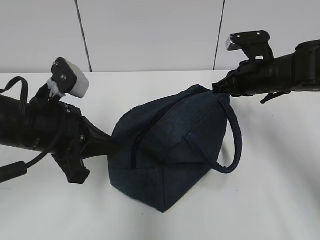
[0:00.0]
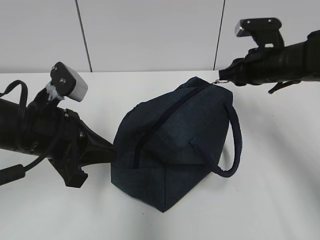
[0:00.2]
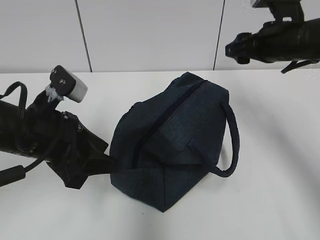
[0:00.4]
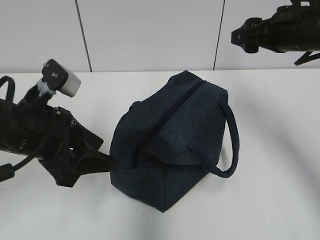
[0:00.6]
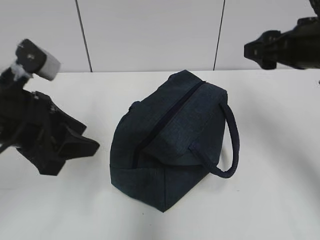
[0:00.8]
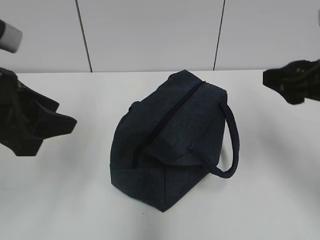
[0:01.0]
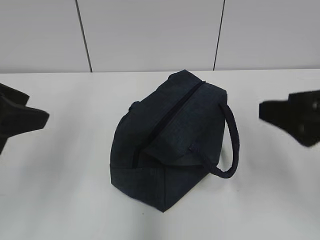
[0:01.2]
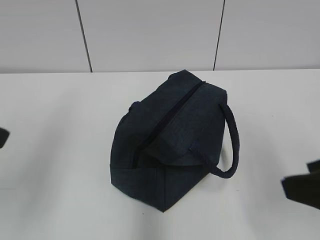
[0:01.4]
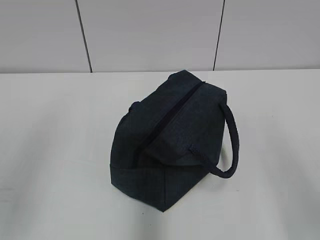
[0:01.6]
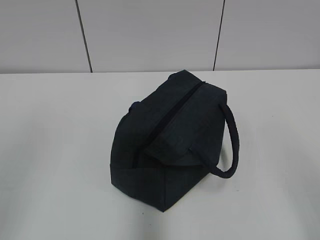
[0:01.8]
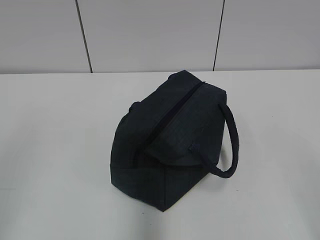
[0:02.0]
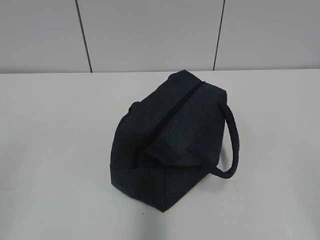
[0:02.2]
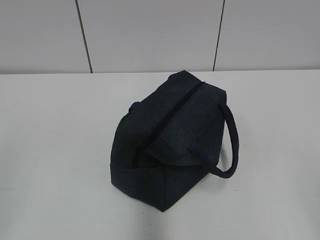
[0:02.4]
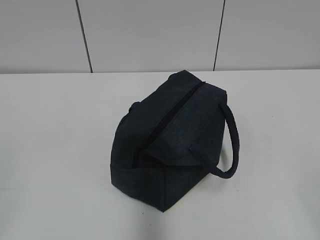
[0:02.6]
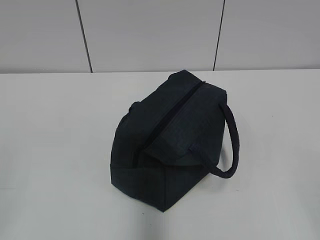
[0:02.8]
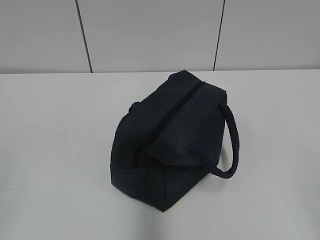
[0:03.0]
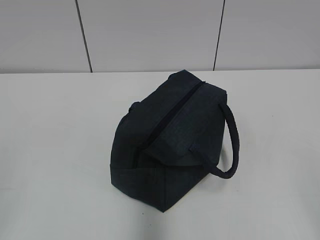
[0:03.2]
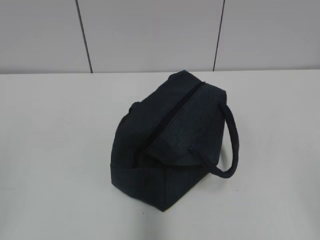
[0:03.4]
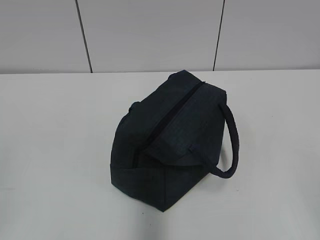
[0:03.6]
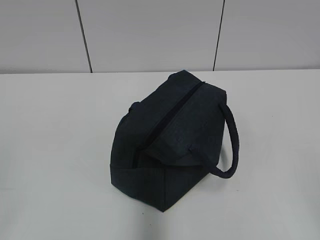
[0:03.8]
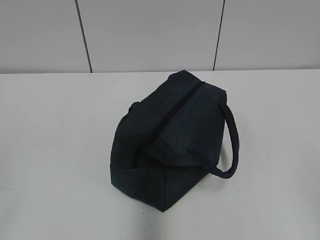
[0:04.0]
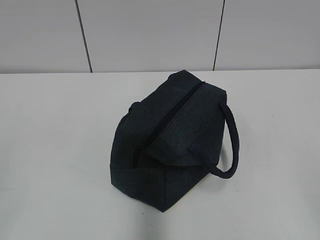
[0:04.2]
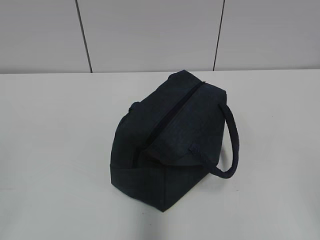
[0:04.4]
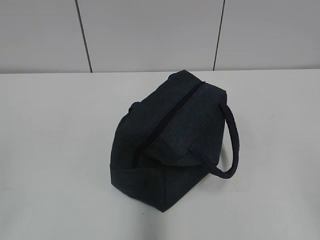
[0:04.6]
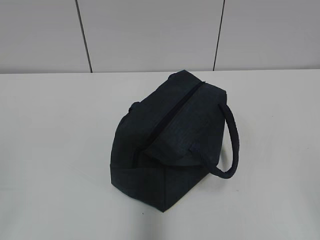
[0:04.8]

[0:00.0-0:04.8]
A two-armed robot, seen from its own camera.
0:00.0 to 0:01.6: The left gripper moves backward, upward and to the left, approximately 20 cm, and opens up. Meanwhile the right gripper shifts approximately 30 cm backward, and opens up.

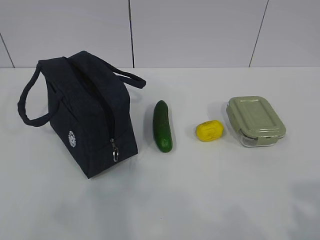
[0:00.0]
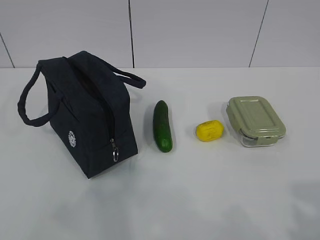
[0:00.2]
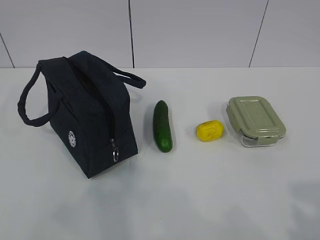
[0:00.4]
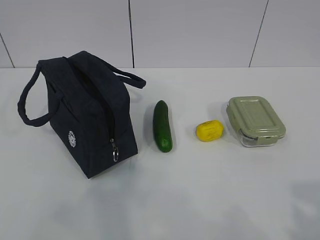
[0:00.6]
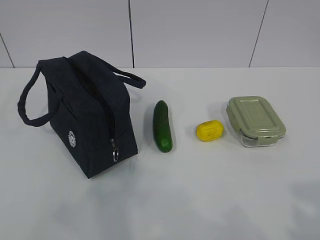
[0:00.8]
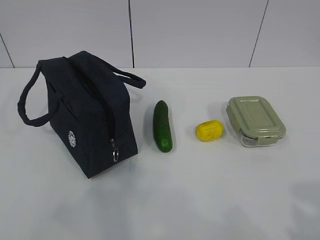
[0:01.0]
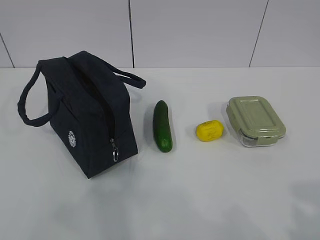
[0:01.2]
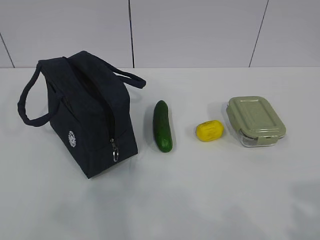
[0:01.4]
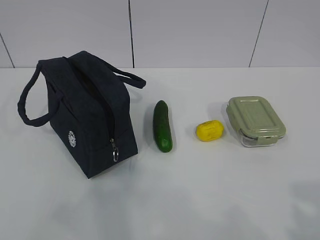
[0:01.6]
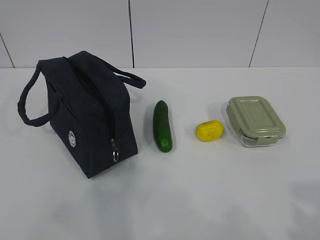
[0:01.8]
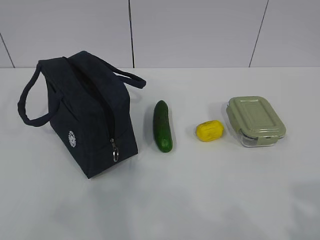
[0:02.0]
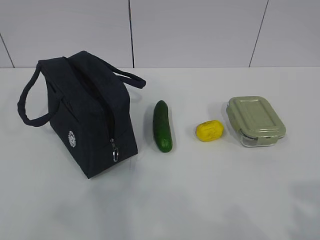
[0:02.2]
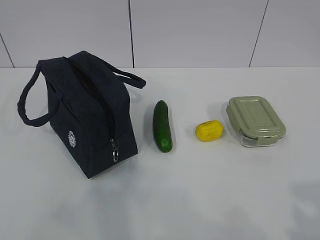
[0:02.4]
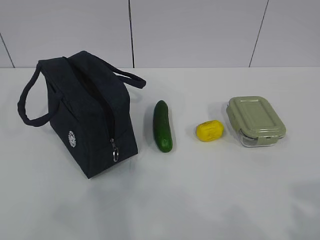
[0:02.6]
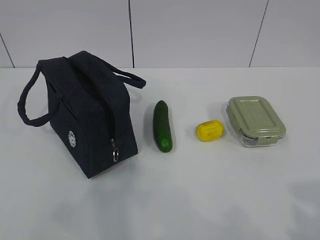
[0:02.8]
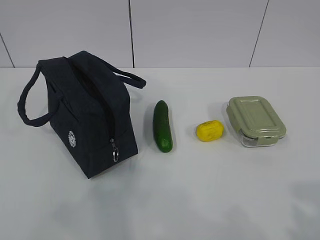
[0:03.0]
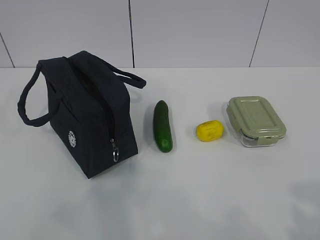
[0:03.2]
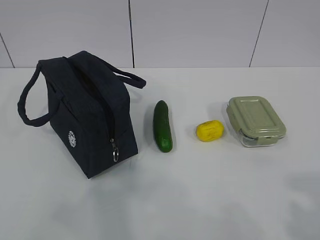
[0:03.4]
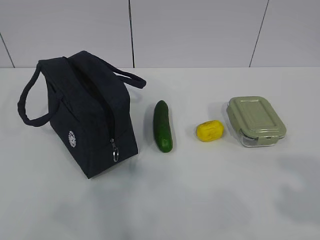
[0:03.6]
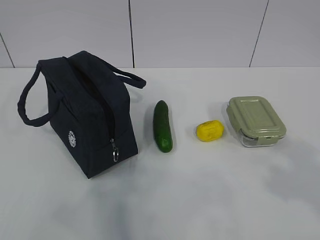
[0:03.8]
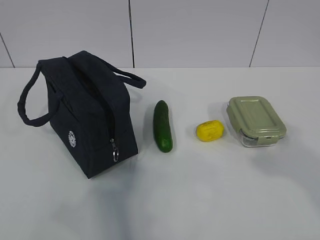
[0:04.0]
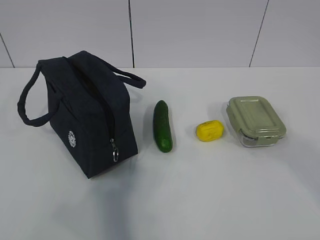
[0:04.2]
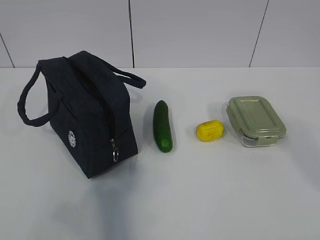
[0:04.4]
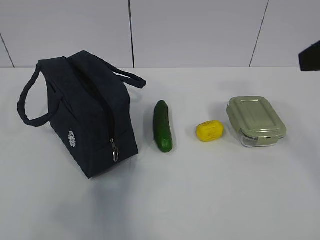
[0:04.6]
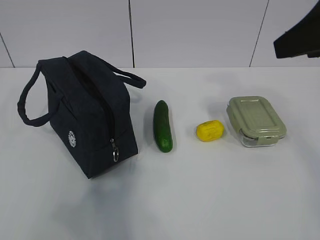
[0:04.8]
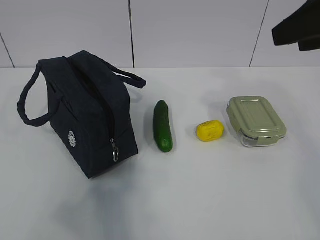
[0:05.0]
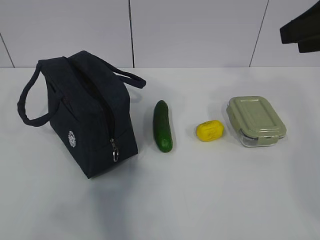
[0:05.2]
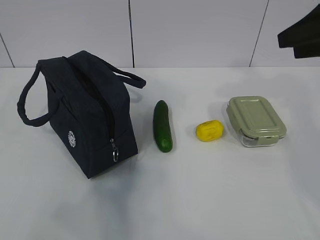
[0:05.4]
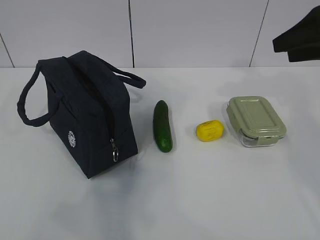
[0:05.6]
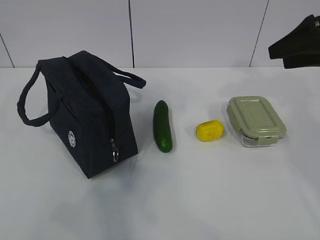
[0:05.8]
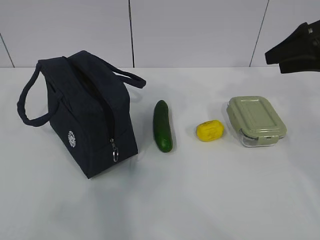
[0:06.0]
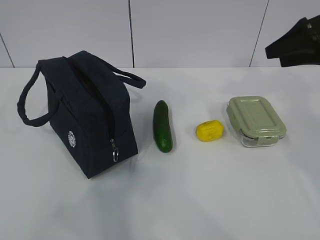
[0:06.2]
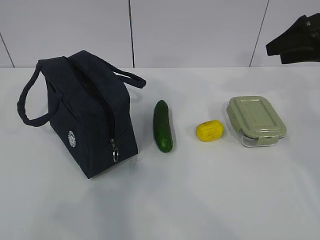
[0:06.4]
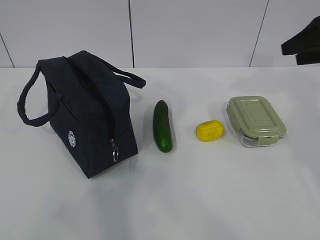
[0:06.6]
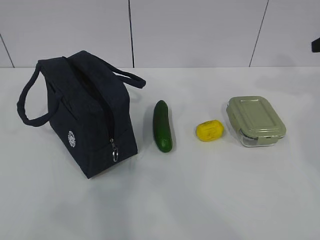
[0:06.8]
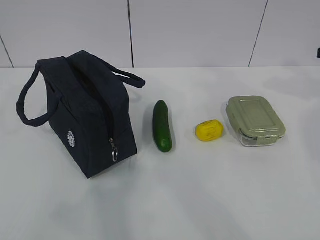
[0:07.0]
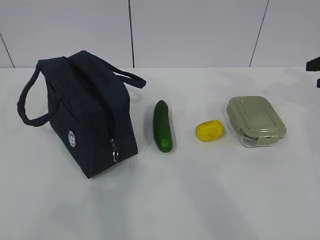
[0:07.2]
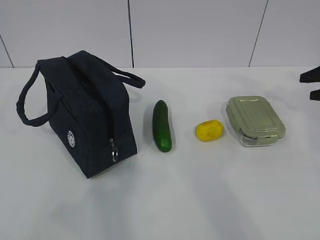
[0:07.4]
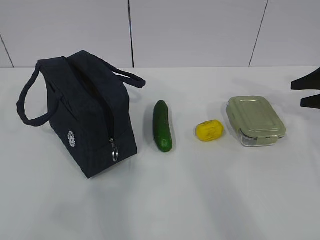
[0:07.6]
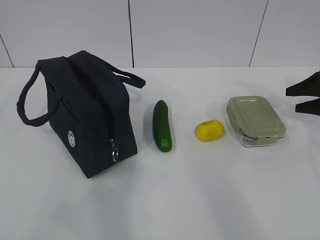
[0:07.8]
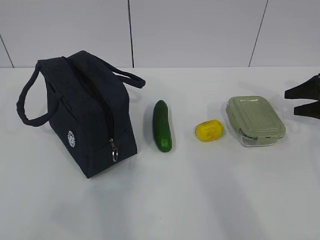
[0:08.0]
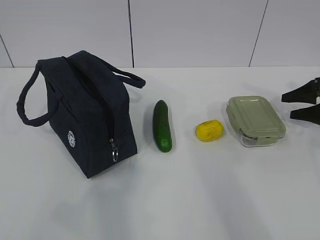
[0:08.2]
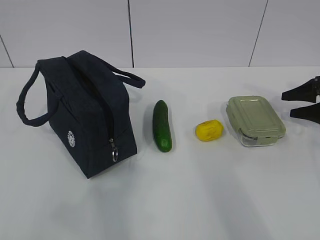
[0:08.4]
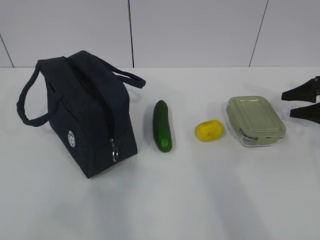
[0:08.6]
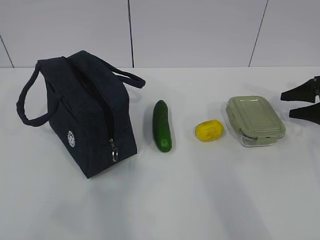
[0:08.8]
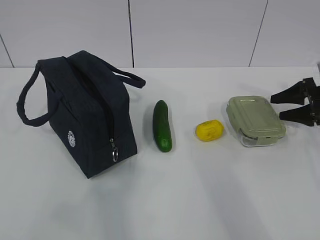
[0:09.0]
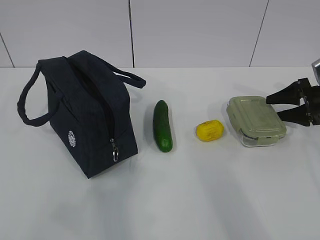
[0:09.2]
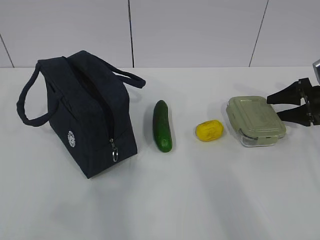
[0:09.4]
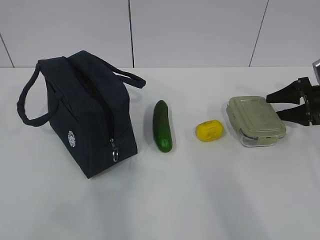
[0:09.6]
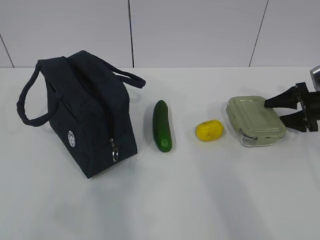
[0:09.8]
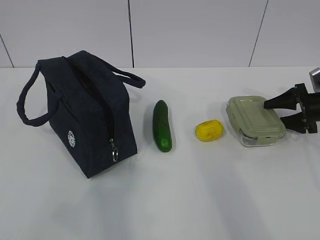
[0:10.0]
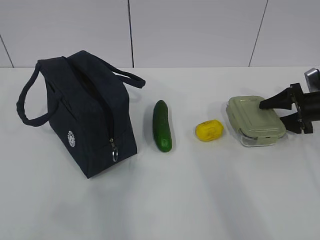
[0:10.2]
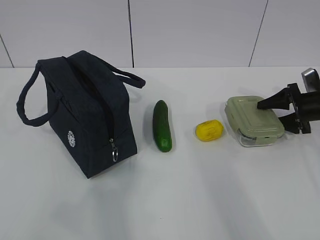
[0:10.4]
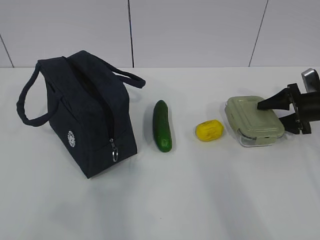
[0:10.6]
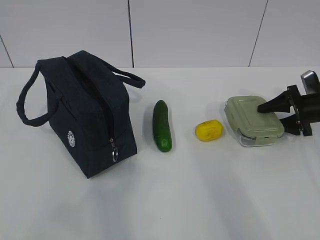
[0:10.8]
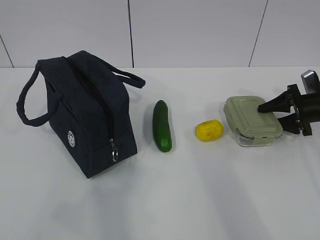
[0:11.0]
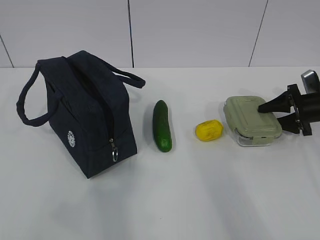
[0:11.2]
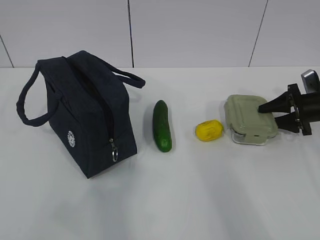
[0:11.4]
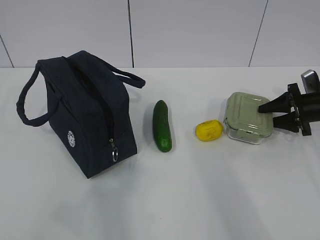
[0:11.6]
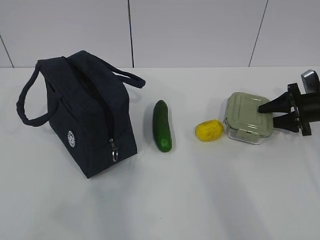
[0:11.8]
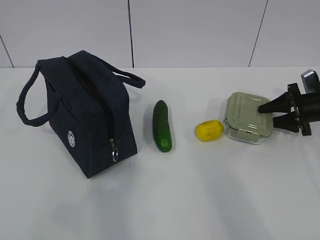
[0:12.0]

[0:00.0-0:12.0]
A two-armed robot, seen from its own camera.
Step, 0:00.0 to 0:10.6: Grab the lunch box with your right hand.
0:01.6 to 0:03.0: Both grippers stay put.
0:03.0 to 0:04.4: The right gripper is displaced forward and upward by some 20 cm.
0:04.4 to 0:06.0: The right gripper moves forward, some 20 cm.
0:06.0 to 0:07.6: The right gripper shifts some 15 cm downward and to the right.
0:07.6 to 0:09.0: The right gripper moves about 5 cm.
0:09.0 to 0:10.4: The grippers make only small movements.
0:10.4 to 0:12.0: Neither gripper changes place.

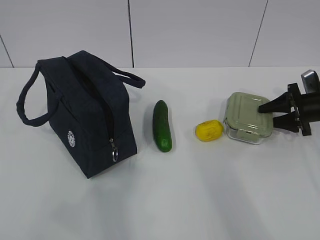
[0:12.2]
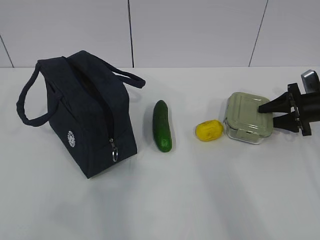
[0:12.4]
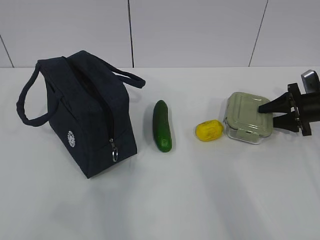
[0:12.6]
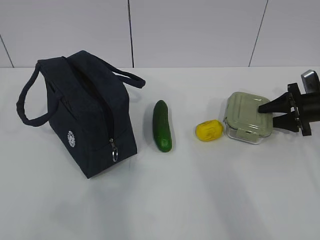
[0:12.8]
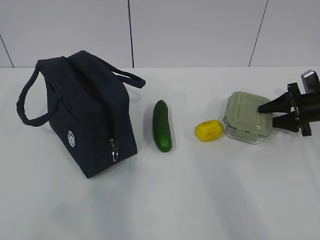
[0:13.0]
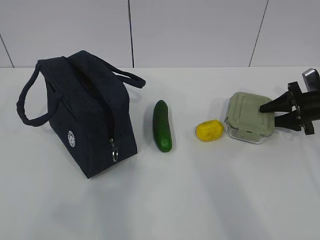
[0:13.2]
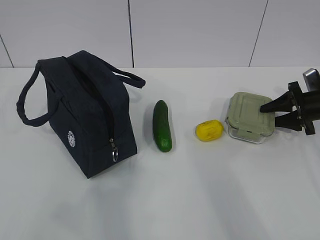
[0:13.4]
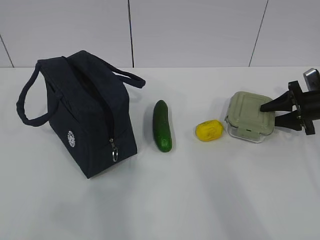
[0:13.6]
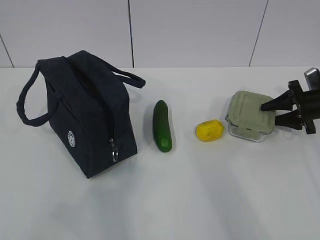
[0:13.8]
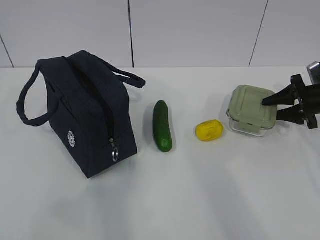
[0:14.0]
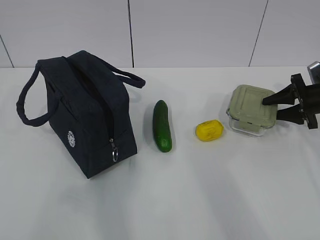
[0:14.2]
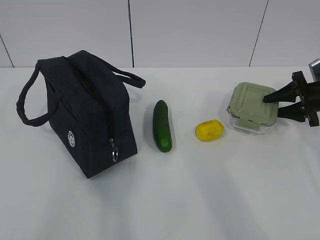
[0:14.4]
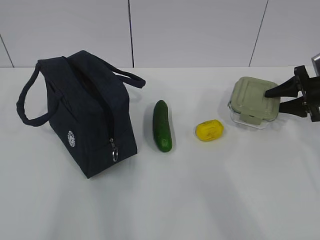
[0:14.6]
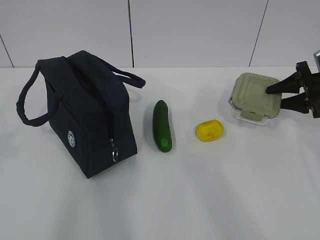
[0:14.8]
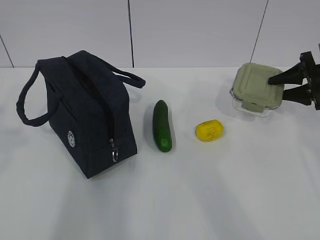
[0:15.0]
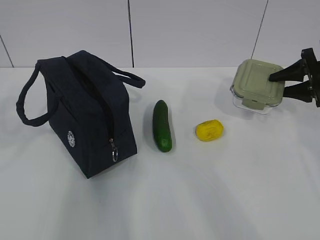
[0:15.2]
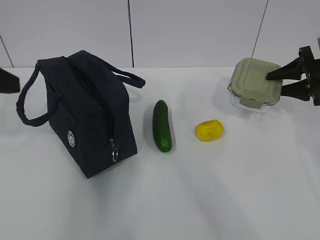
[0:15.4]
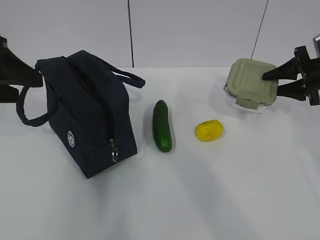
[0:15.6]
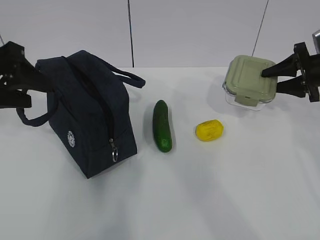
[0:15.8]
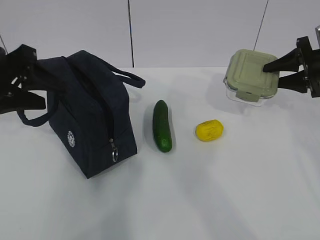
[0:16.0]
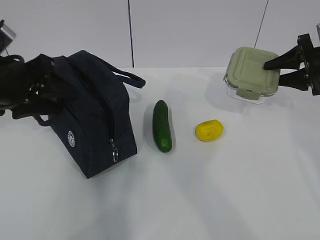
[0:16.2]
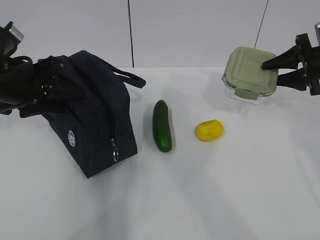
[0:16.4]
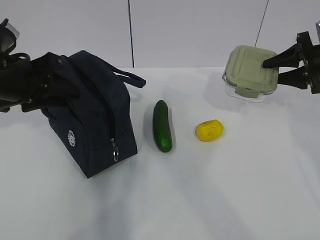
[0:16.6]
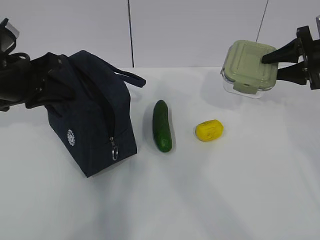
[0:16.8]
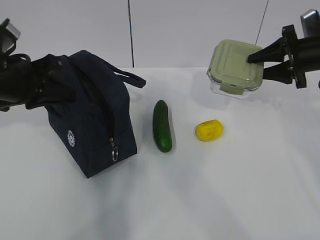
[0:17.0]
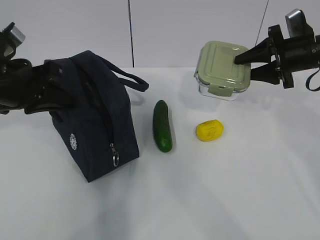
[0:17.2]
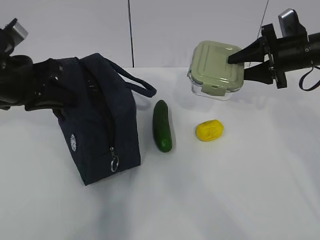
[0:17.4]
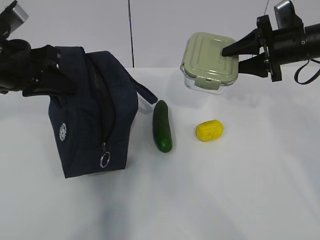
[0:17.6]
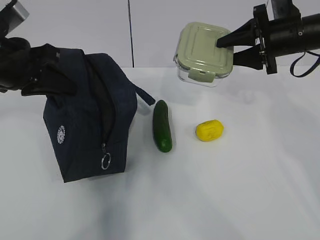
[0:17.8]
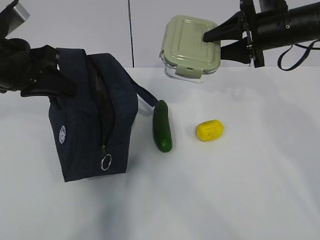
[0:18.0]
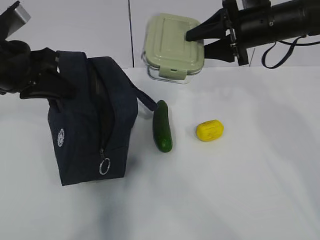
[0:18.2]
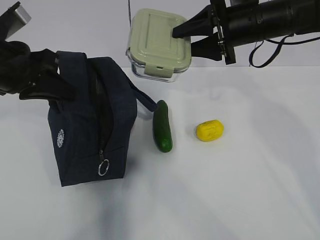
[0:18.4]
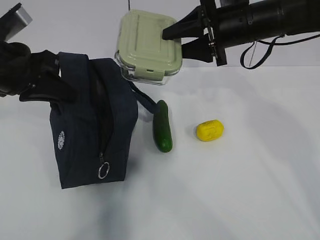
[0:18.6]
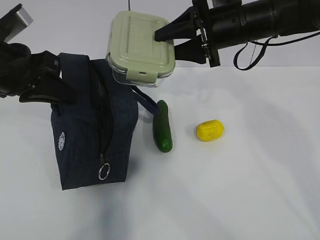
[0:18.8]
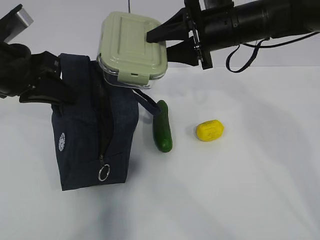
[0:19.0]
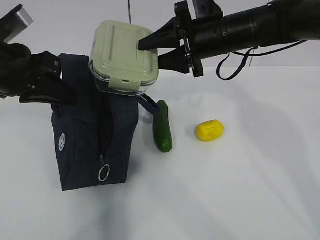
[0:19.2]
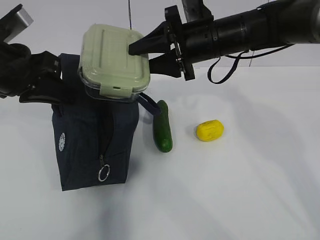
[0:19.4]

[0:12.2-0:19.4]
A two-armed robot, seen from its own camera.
Step, 0:12.2 to 0:16.0: Grab the lunch bag with your left hand.
Step, 0:16.4 to 0:18.8: Place it into the bag with your right hand.
0:12.2 to 0:13.6: The two grippers keep their place.
0:13.6 to 0:15.0: The right gripper moves upward, some 5 cm.
0:15.0 to 0:16.6: The left gripper travels forward and downward by approximately 20 cm.
0:16.6 to 0:18.0: The right gripper goes roughly 15 cm to the left and upward. The left gripper closes up.
0:18.0 to 0:19.4: The right gripper heads to the left, covering some 15 cm.
